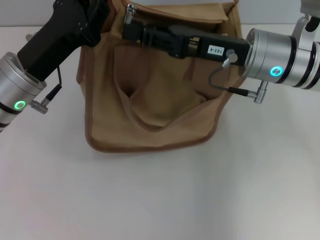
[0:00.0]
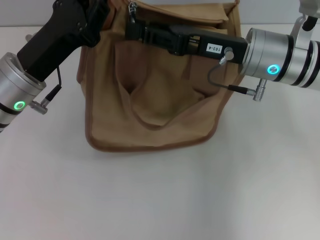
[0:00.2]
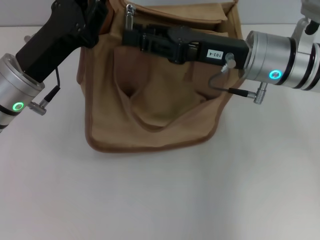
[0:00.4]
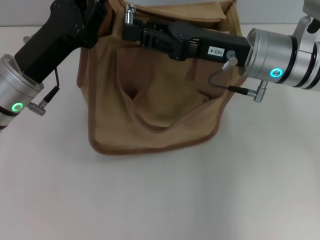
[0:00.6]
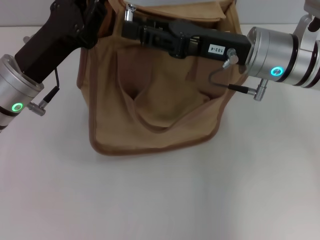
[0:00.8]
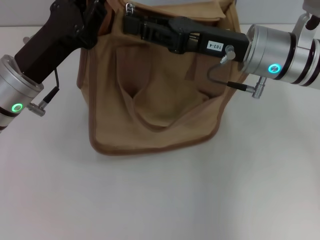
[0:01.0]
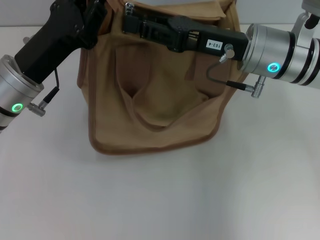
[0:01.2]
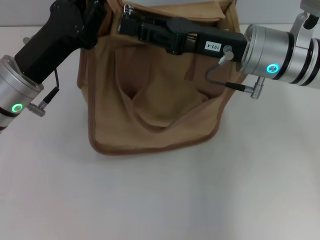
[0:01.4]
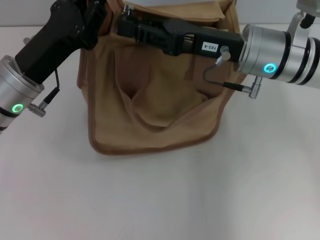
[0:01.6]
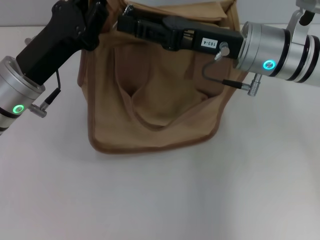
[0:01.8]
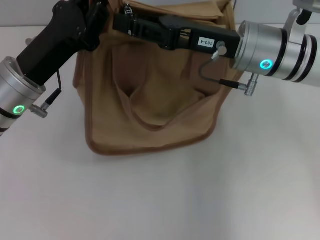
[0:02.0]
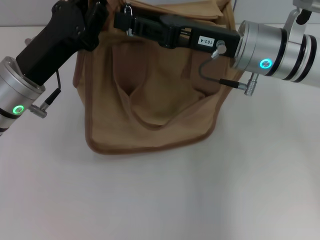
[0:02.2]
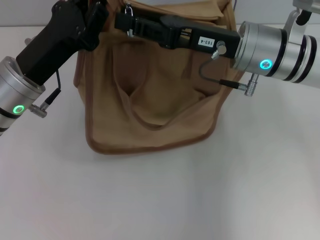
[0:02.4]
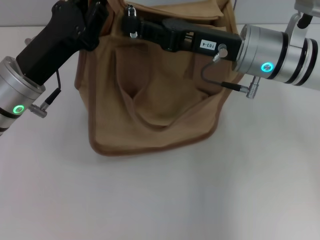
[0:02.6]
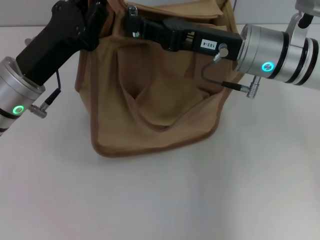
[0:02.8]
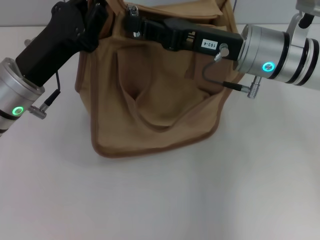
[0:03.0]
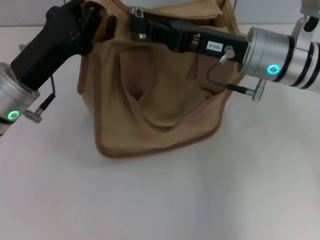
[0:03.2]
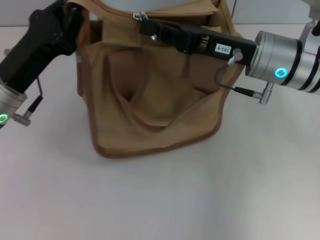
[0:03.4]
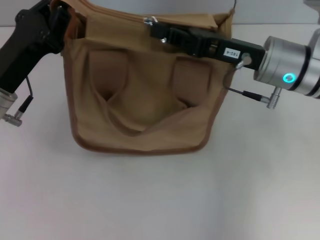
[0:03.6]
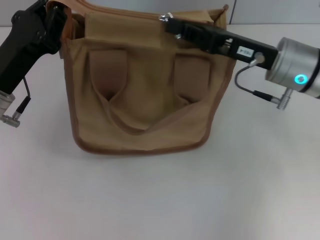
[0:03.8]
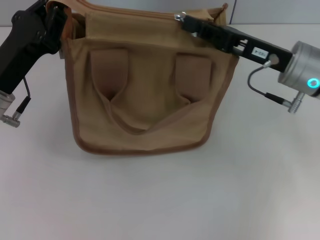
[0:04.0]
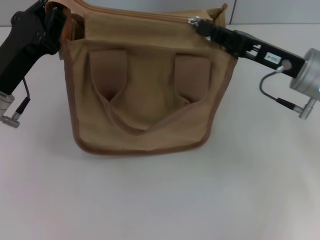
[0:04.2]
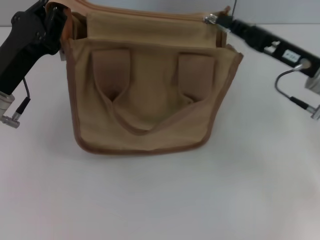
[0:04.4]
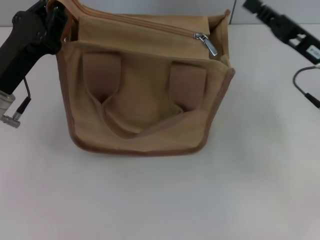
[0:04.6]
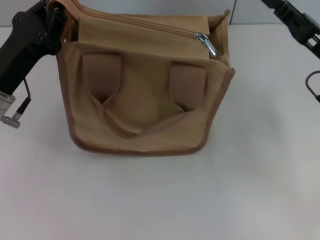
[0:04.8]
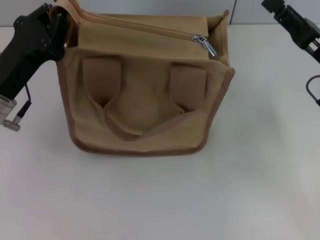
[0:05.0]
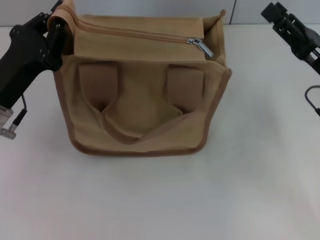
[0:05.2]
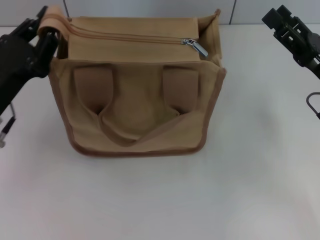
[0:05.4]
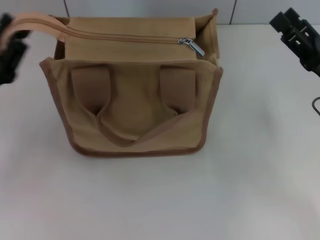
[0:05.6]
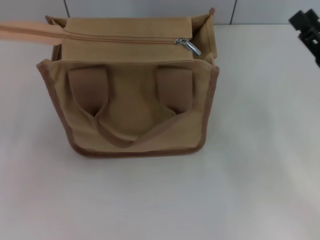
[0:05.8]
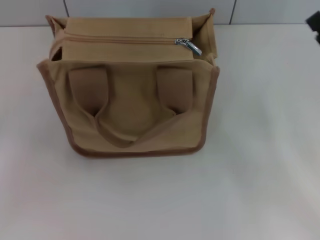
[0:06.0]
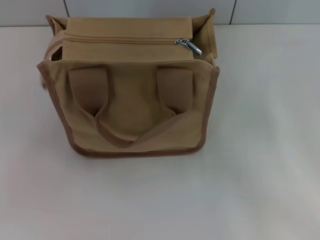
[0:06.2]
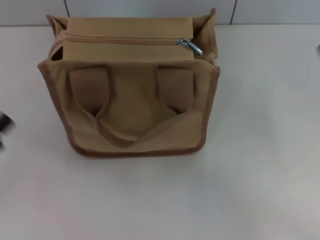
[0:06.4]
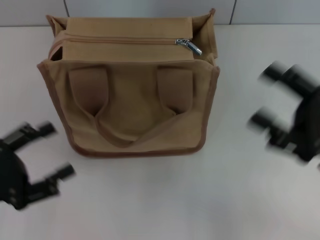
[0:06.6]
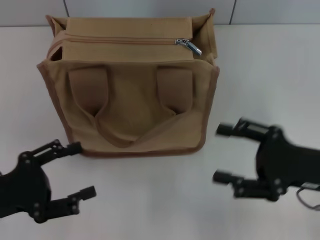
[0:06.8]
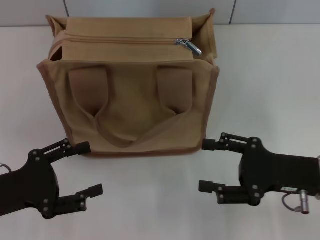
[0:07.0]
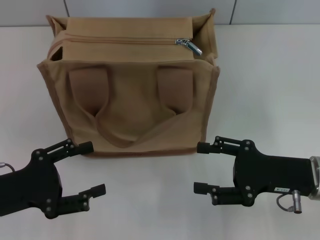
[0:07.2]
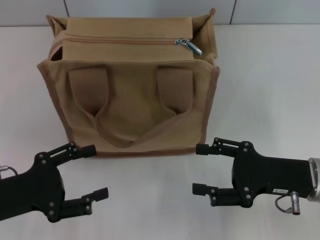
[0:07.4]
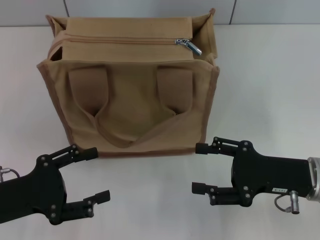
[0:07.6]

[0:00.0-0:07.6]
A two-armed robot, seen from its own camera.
Step, 0:00.0 to 0:04.4: Pull up the zipper with your right hand.
Step, 0:04.6 to 0:05.8: Grab the zipper with your left hand.
0:00.0 to 0:01.6: Both grippers stay about where they are.
0:01.6 to 0:03.0: The right gripper closes its fingers.
0:03.0 to 0:04.6: The right gripper is displaced to the right by roughly 10 cm.
0:04.6 to 0:06.0: The left gripper shifts about 15 cm to the left and backward, and opens up; the right gripper travels backward by about 5 cm, and opens.
0:06.0 to 0:07.6: The left gripper travels to the right by approximately 10 cm, while the right gripper is displaced to the left by approximately 5 cm.

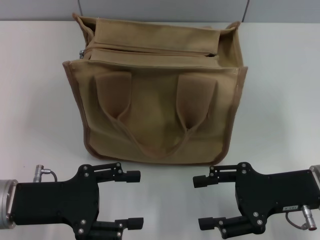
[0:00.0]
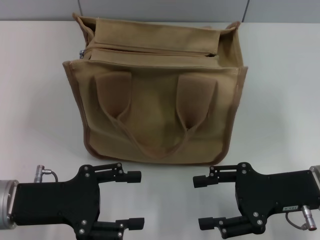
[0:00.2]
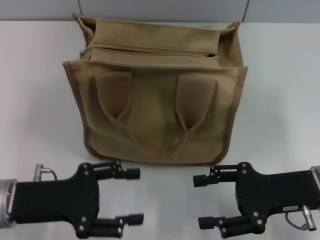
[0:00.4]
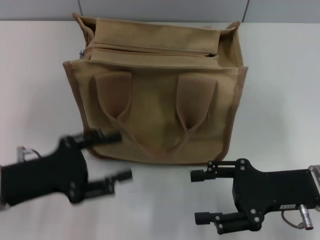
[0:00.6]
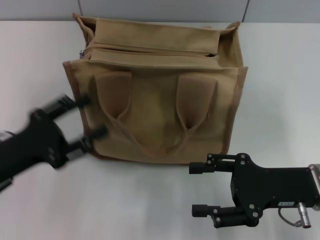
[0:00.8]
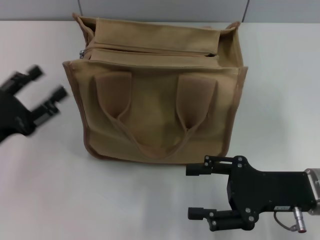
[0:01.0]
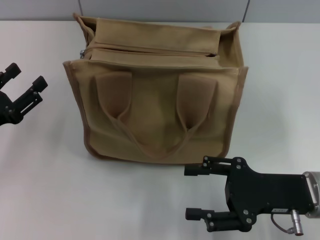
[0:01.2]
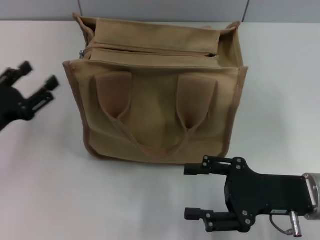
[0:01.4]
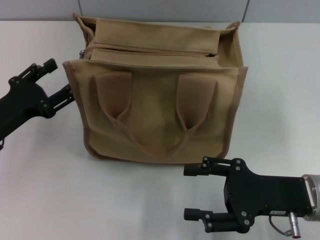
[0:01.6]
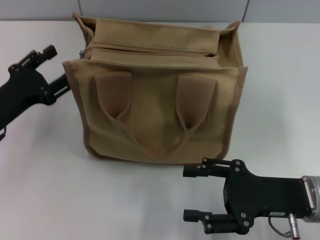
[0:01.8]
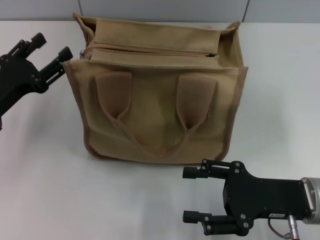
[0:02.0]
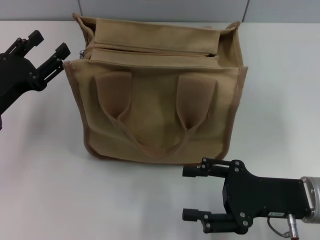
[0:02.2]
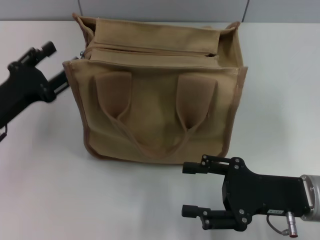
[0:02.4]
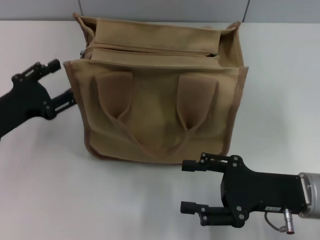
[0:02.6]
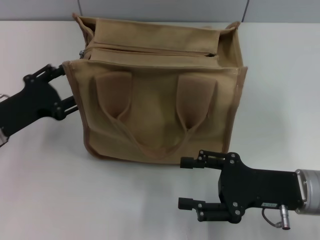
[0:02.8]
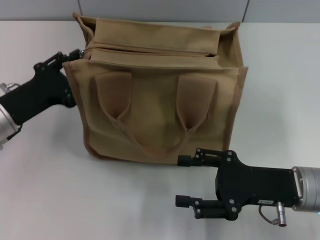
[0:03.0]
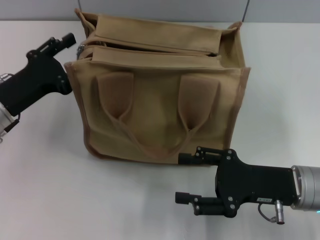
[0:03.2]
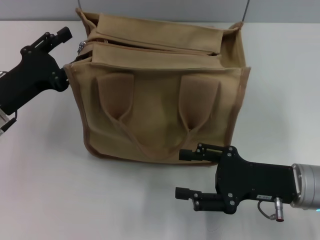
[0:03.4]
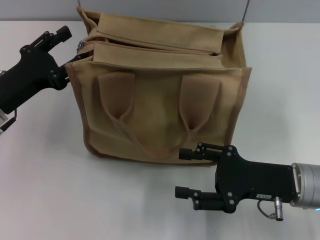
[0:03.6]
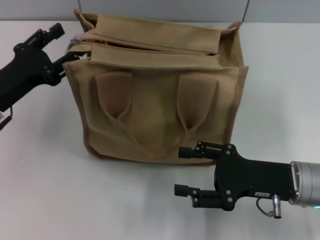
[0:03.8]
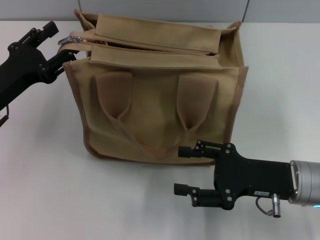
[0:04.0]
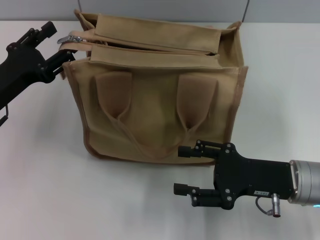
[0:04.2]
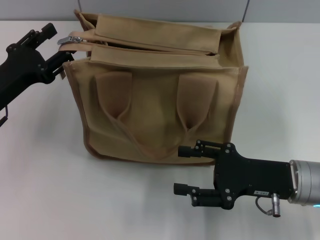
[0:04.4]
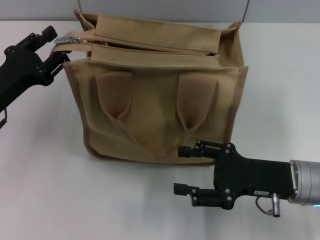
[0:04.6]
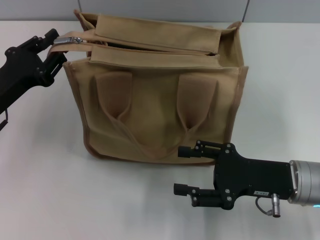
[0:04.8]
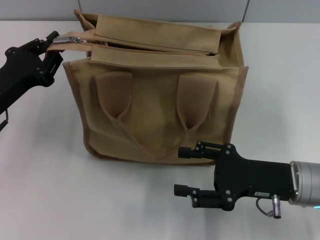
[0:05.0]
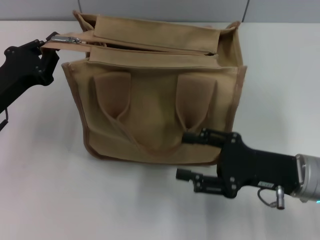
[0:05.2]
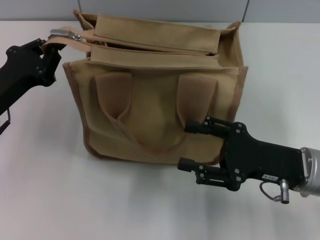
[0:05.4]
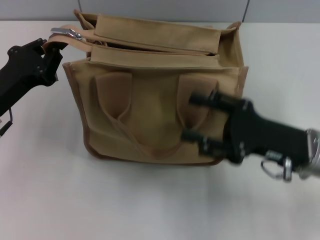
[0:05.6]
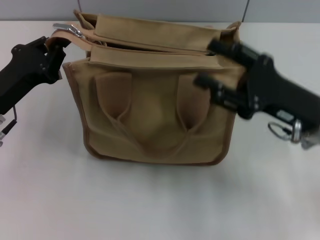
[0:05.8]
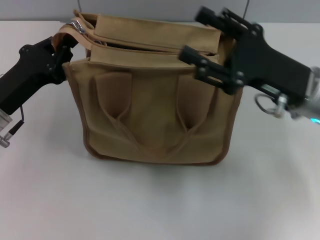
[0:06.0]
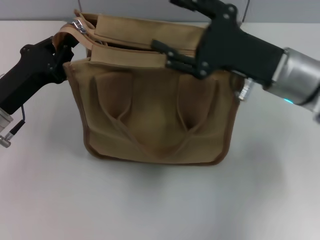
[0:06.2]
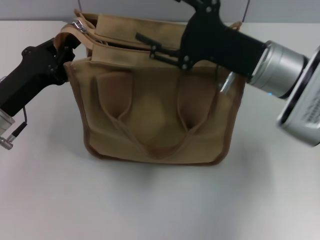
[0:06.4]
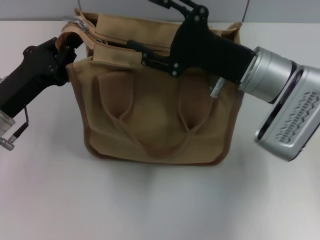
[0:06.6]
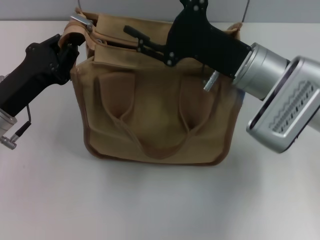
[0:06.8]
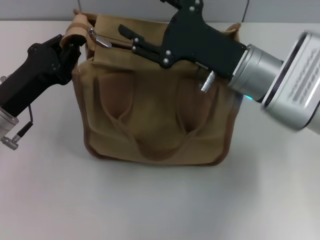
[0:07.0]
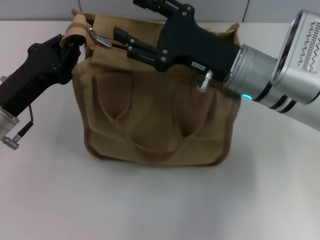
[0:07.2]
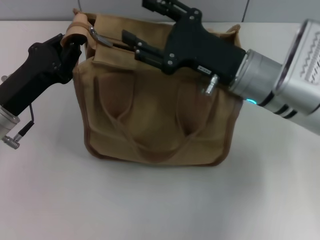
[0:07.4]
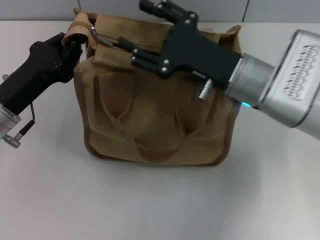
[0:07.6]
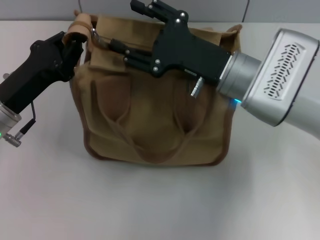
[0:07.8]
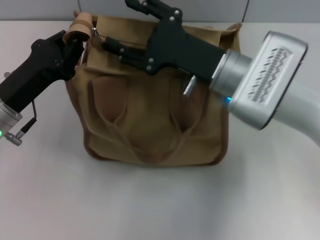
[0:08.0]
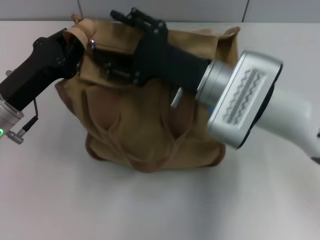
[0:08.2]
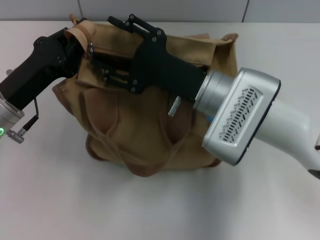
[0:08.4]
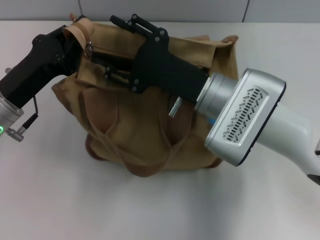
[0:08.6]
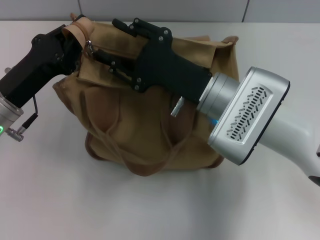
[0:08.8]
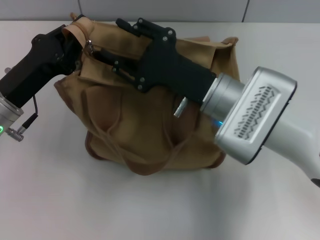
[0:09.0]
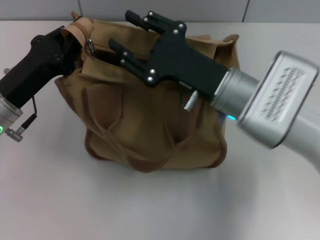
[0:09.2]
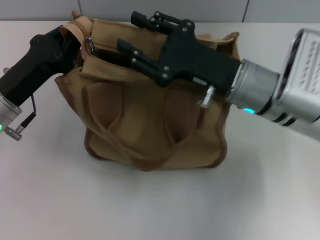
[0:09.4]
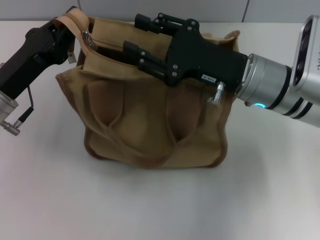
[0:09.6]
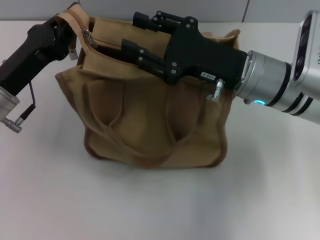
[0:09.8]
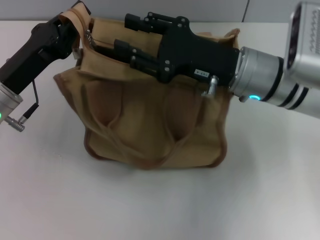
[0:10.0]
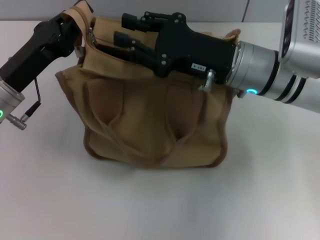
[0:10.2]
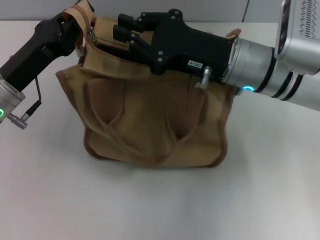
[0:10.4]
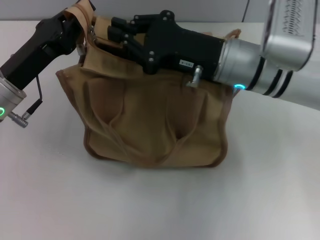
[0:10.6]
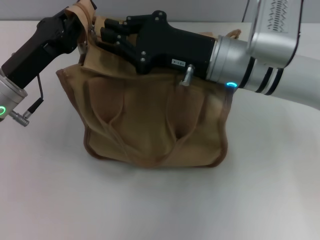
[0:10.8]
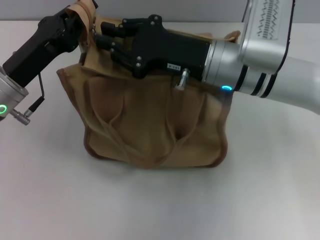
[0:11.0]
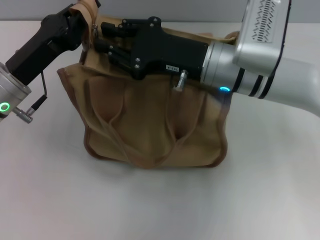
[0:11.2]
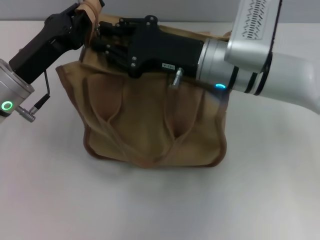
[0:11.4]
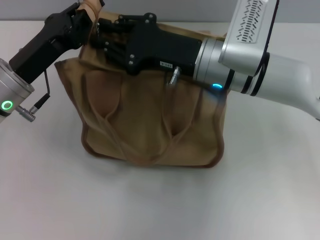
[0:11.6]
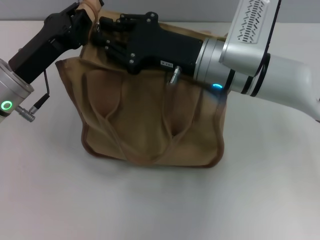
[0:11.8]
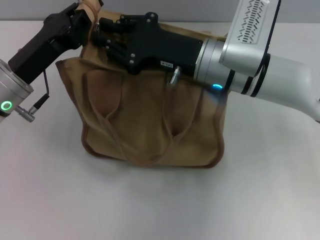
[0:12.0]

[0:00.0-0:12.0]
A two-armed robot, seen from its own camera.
0:00.0 to 0:01.6: The left gripper moves forward, approximately 5 cm.
0:01.6 to 0:04.4: The grippers move only a little.
0:04.4 to 0:06.0: The left gripper closes its fingers; the right gripper shifts roughly 10 cm upward and forward.
0:06.0 to 0:07.6: The right gripper is displaced to the left by some 5 cm.
0:09.0 to 0:10.4: The right gripper moves approximately 5 cm, and closes up.

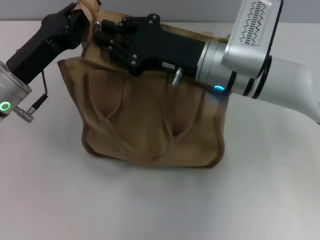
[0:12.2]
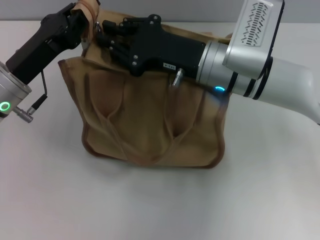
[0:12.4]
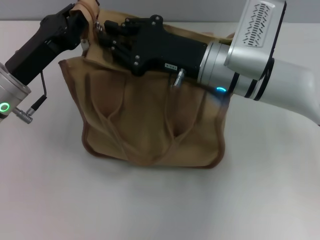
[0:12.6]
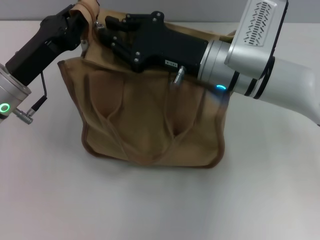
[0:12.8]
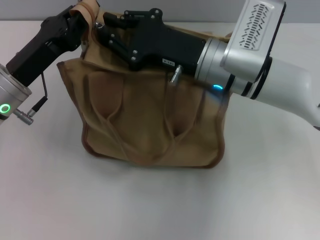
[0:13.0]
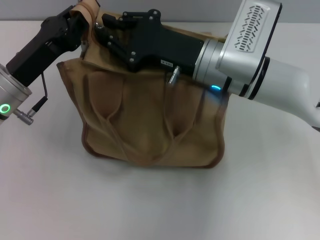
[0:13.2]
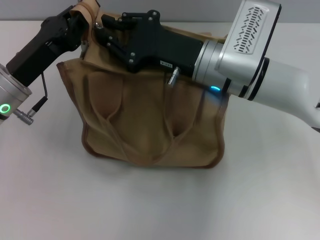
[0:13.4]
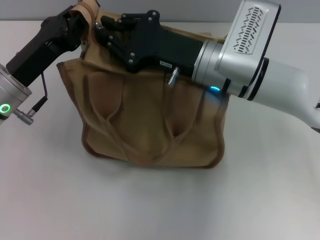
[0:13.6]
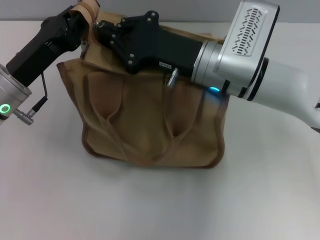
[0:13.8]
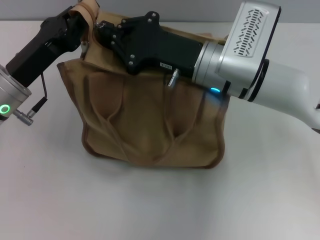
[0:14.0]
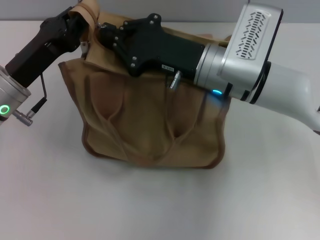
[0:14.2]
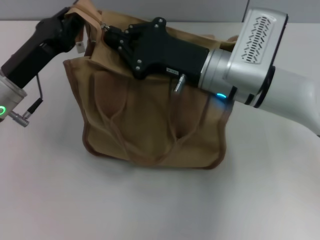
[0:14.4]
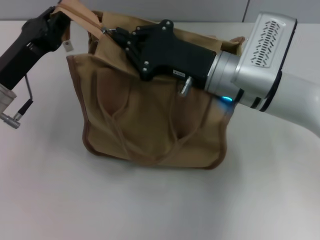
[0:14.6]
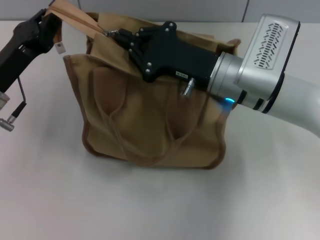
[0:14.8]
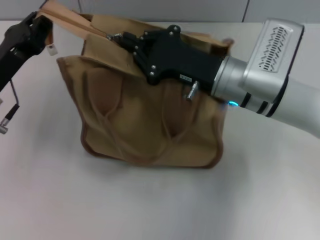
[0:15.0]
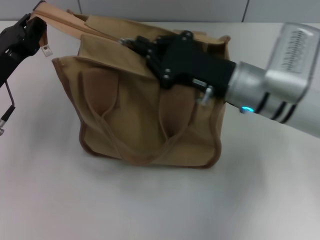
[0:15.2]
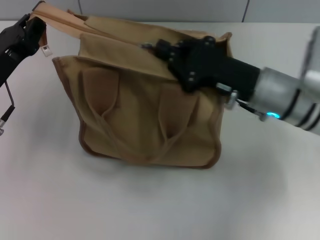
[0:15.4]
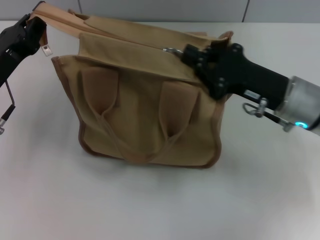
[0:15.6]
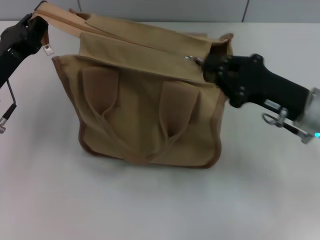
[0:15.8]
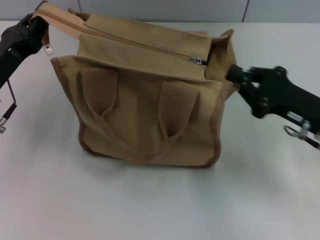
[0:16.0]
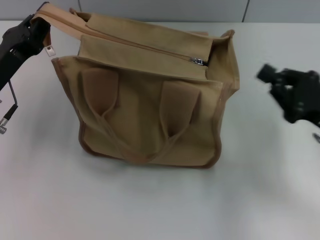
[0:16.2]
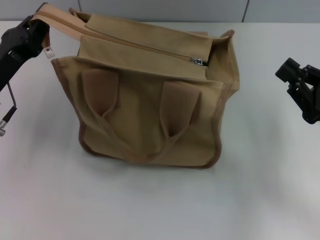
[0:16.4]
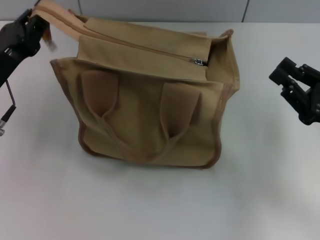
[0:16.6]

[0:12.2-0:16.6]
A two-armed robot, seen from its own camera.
Step, 0:12.2 to 0:15.8: Pull up the zipper with your right hand.
0:12.2 to 0:13.6: Both grippers stay put.
0:13.6 to 0:15.2: The right gripper moves approximately 5 cm.
0:15.2 to 0:16.6: The right gripper shifts about 20 cm to the right and backward.
